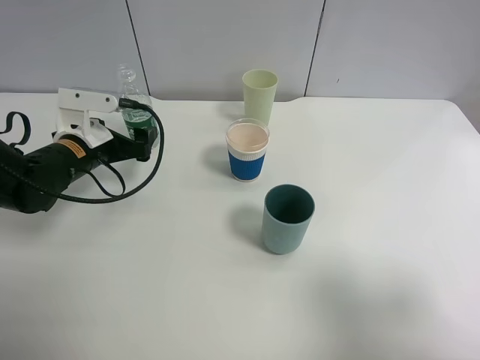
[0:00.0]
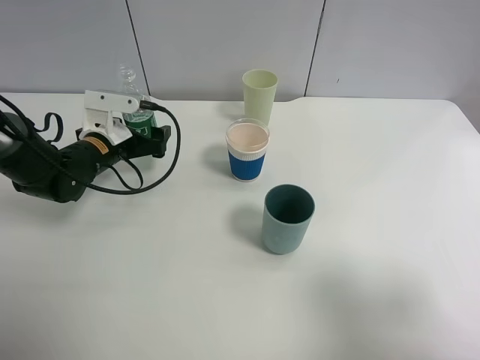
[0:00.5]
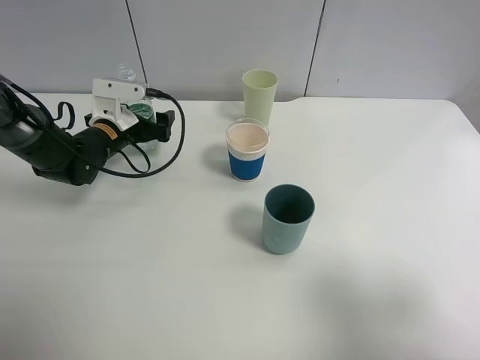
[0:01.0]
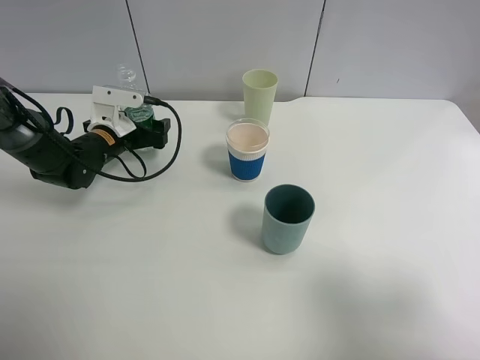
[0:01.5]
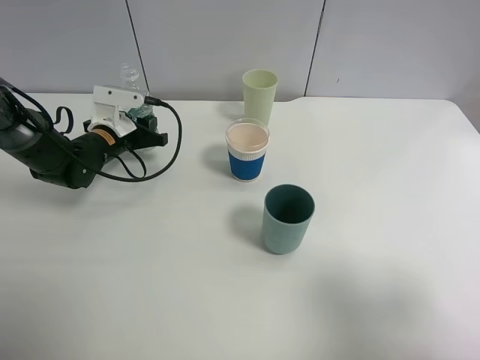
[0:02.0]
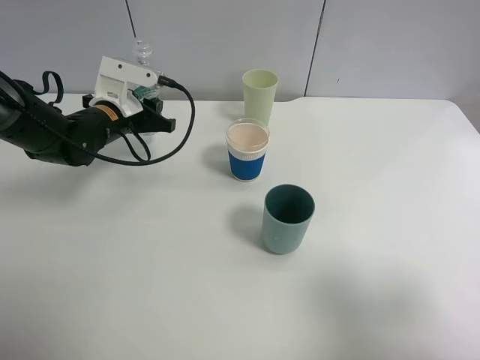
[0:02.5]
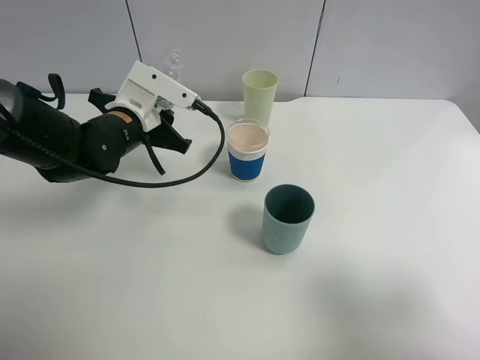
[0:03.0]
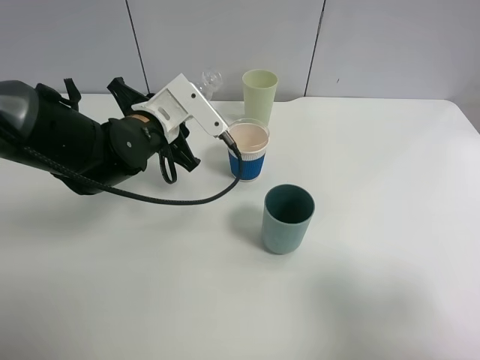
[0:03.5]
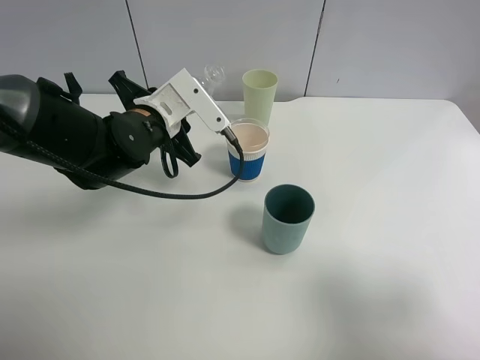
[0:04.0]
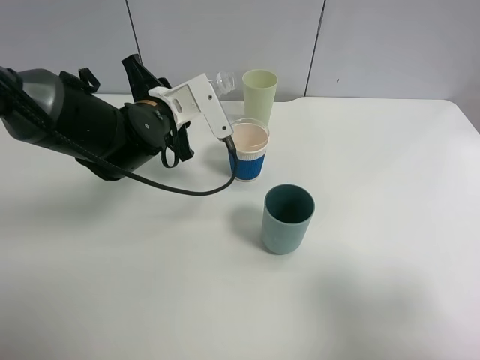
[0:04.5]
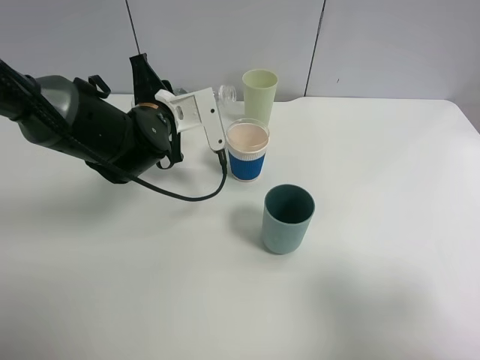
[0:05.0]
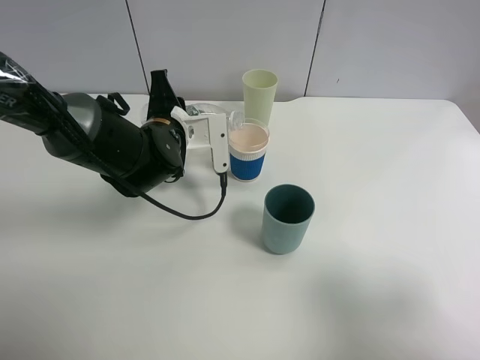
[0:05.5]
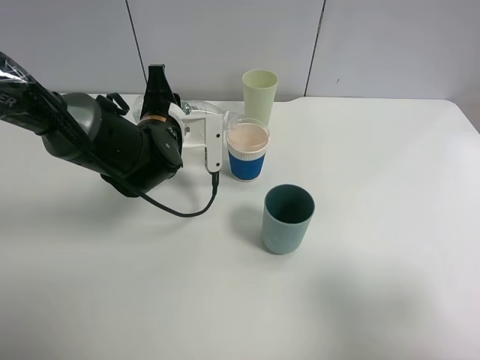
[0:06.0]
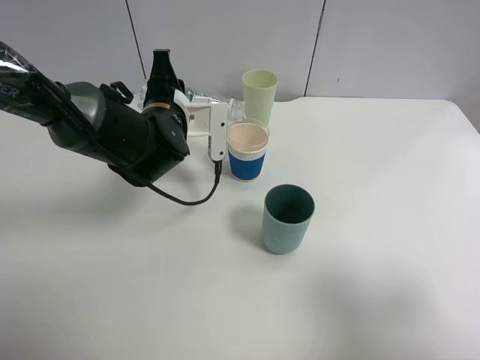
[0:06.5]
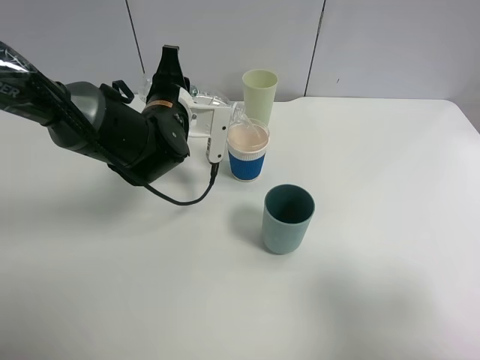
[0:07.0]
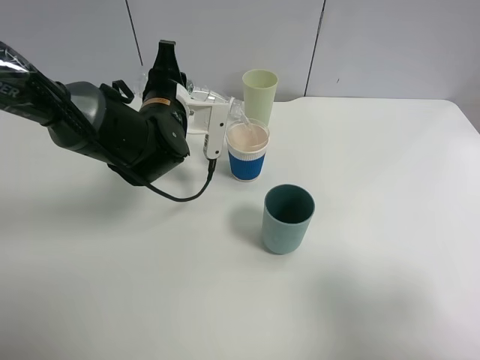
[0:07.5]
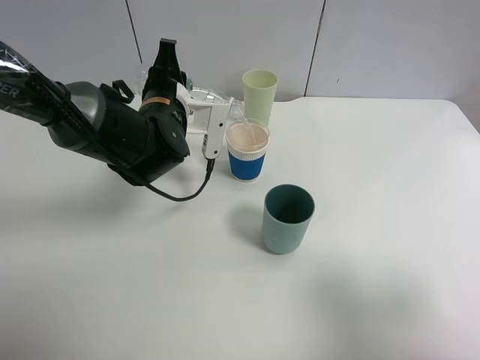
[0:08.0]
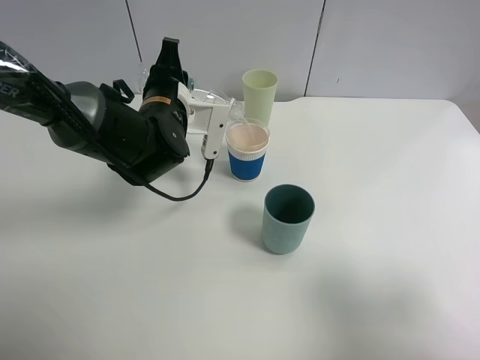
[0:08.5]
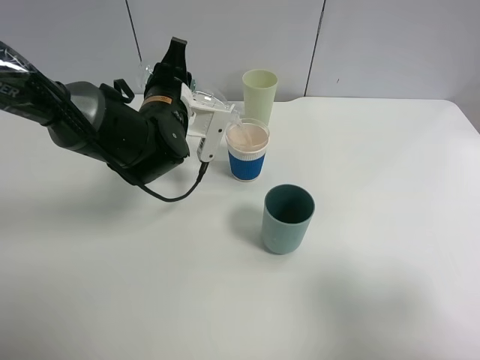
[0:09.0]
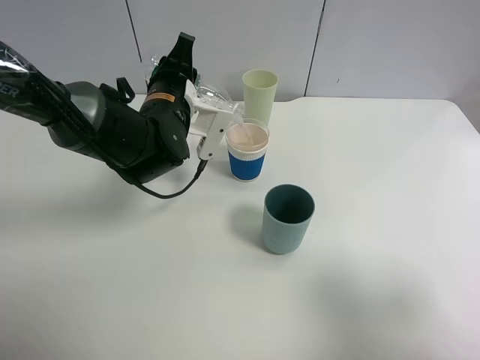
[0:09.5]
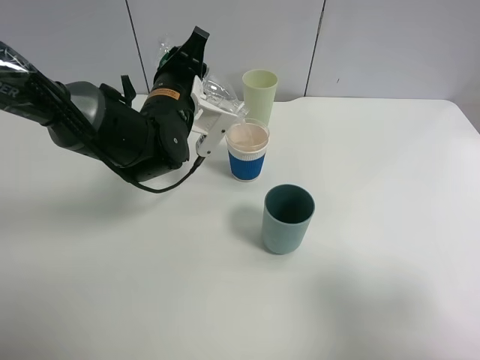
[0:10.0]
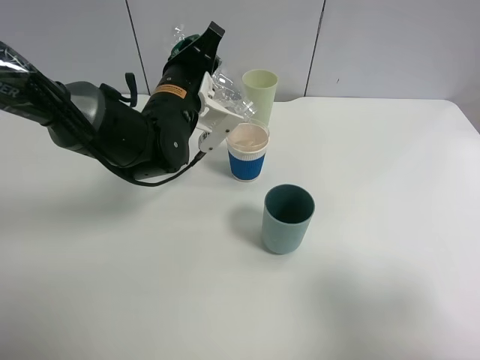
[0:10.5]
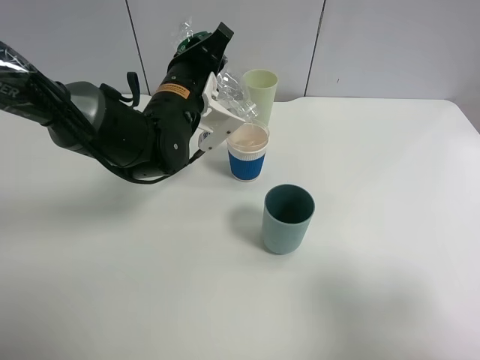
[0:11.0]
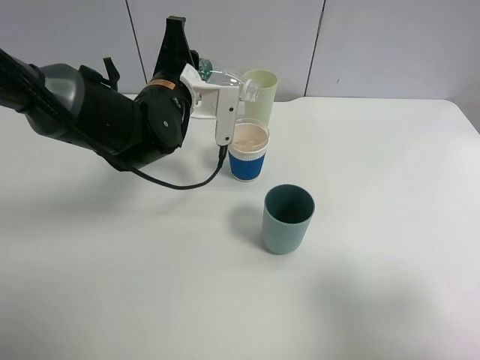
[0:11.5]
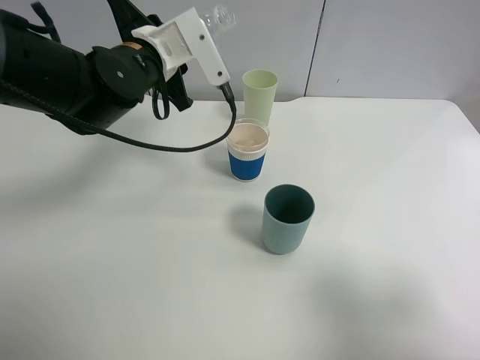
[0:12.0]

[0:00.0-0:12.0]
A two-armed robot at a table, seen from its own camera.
Task of the whole recording: use a clamp to hold the bottle of the drink, pour the beverage into a random cup, then clamp the cup containing the drink and pour the drink into another random cup.
Step, 0:00.0 to 0:02.0: Pick up the water bottle with left gripper.
Step, 0:02.5 to 0:11.5: Pour water into the paper cup with left gripper.
0:00.0 to 0:02.0: The left gripper shifts approximately 5 cm forward, and closes its fingers.
0:02.0 to 0:04.0: The left gripper shifts some 15 cm to the right, upward and backward.
0:06.0 to 0:08.0: The grippers make only small movements.
0:10.0 to 0:12.0: The left gripper heads upward, covering about 5 cm.

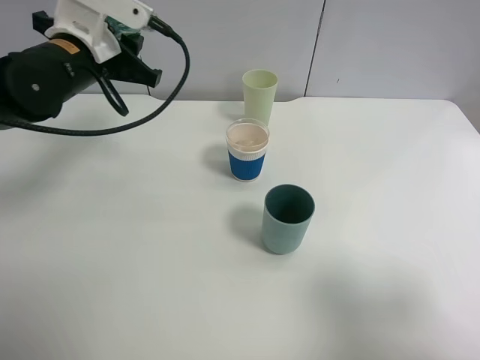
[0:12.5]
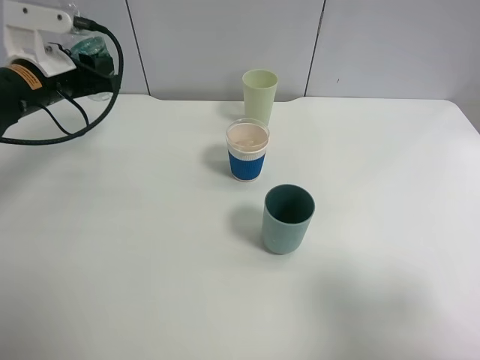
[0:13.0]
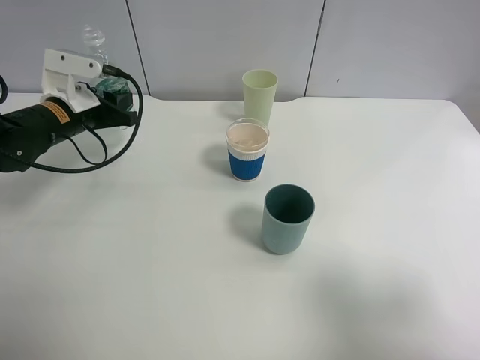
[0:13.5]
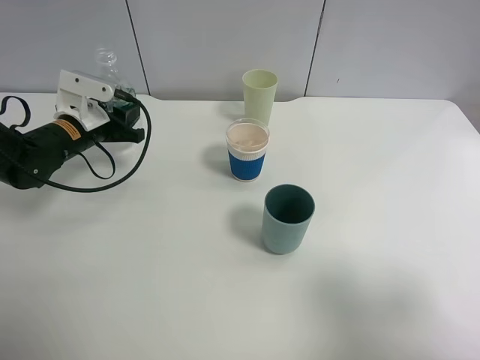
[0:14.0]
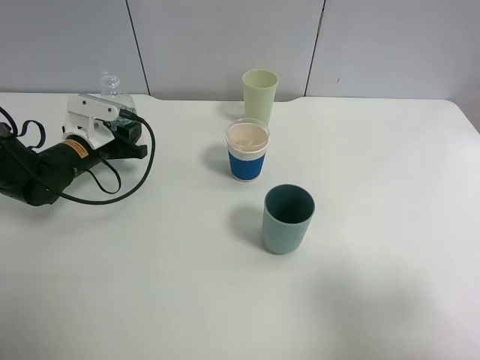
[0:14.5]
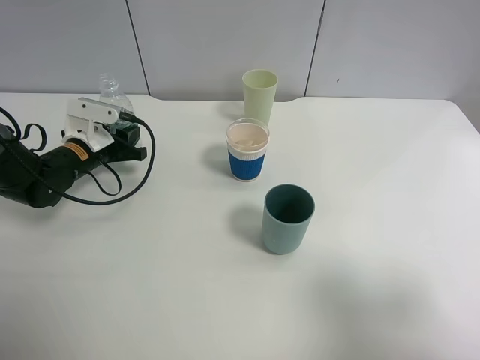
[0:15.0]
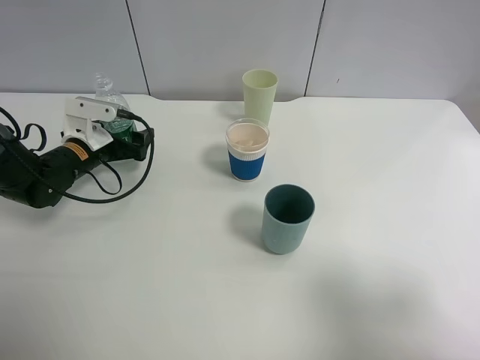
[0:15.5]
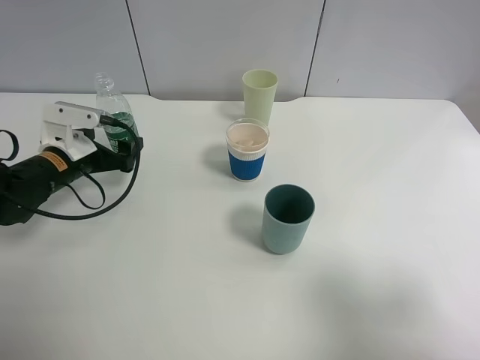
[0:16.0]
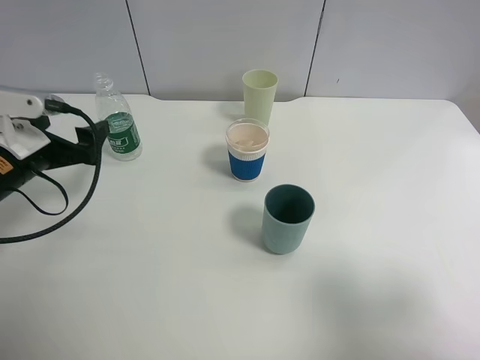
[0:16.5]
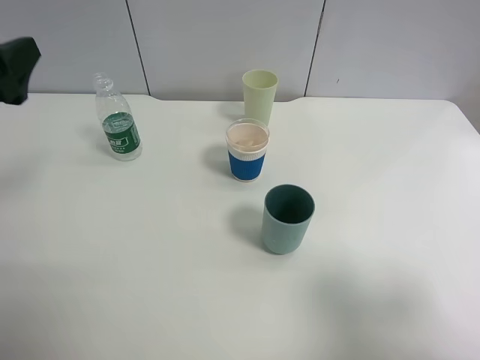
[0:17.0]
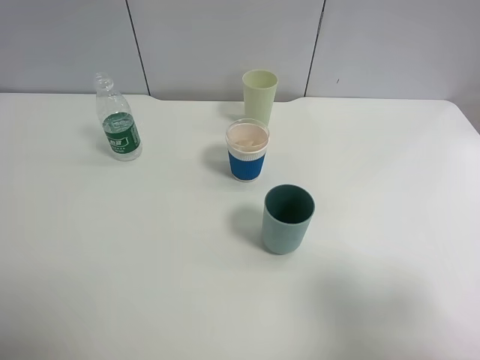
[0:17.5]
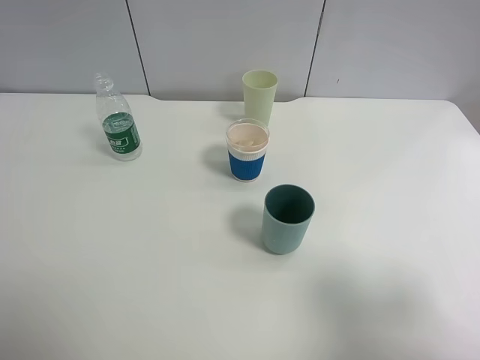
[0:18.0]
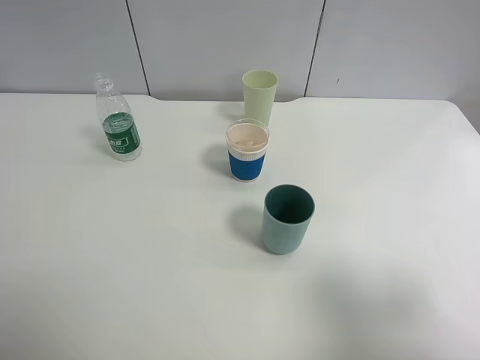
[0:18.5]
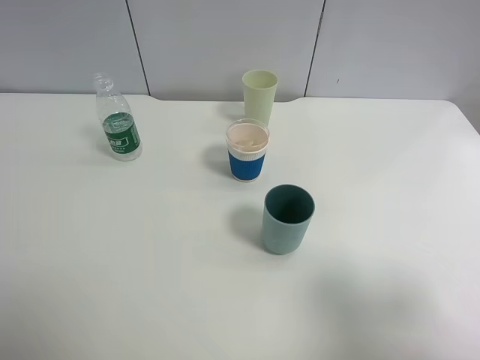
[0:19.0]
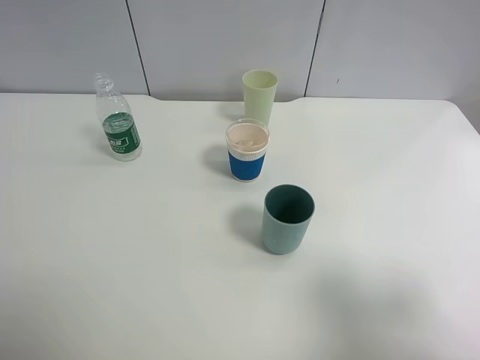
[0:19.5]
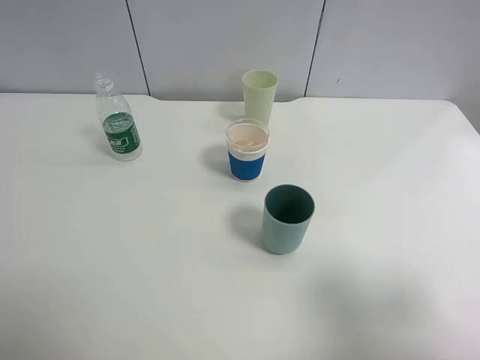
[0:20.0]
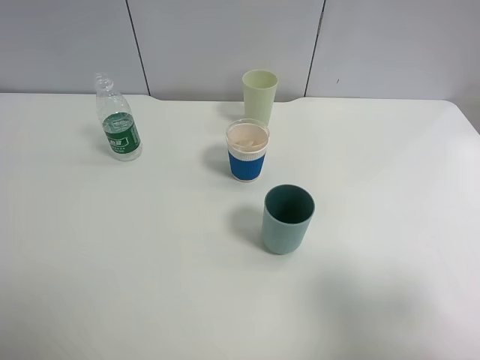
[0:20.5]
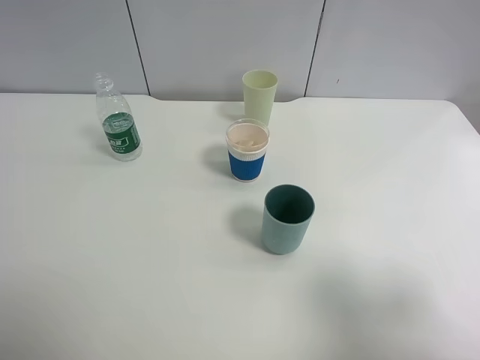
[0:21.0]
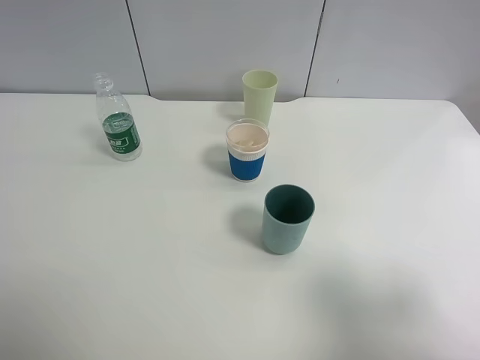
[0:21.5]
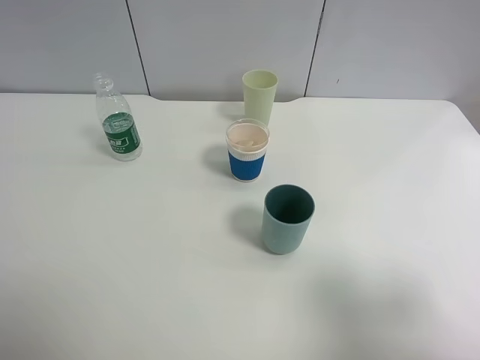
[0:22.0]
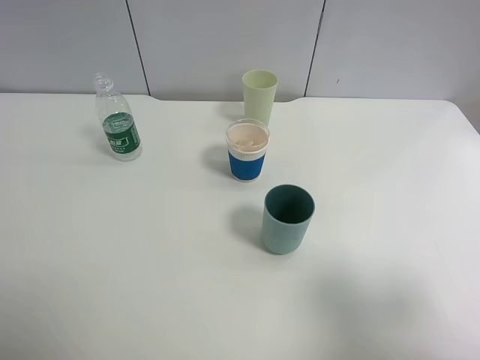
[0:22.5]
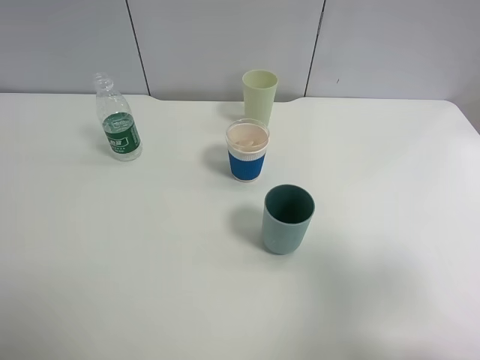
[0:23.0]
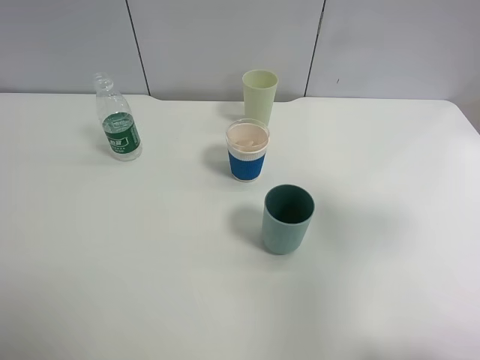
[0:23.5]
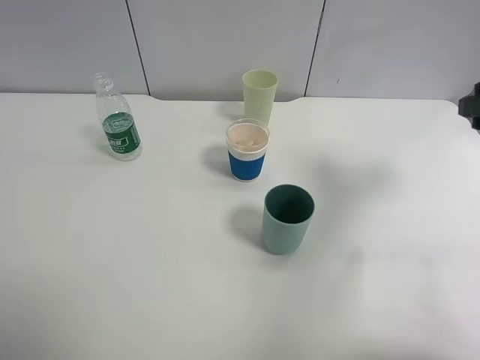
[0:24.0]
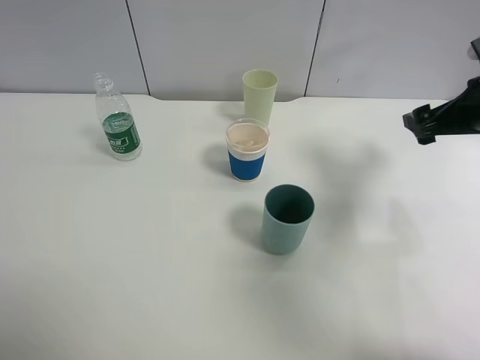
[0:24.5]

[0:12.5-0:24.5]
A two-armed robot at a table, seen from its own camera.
Task of the whole recording: use a clamp to hold the bottle of the drink, pour the beverage into a random cup, then clamp the cup containing the drink and pour the drink into another random cup.
Step, 0:12.5 to 0:15.0: Place the water bottle on the table with left gripper.
0:12.5 to 0:14.5: The left gripper travels downward by approximately 15 cm.
0:14.5 to 0:16.5: The left gripper travels backward and upward by approximately 15 cm, and opens up.
0:16.5 to 0:18.5: The left gripper shifts approximately 30 cm backward and upward.
0:20.5 to 0:22.5: Both grippers stay about where they are.
0:22.5 to 0:24.5: The right gripper travels forward by some 30 cm.

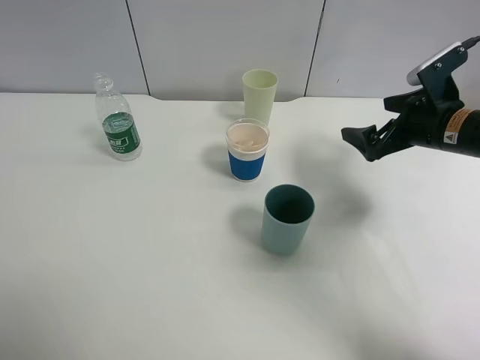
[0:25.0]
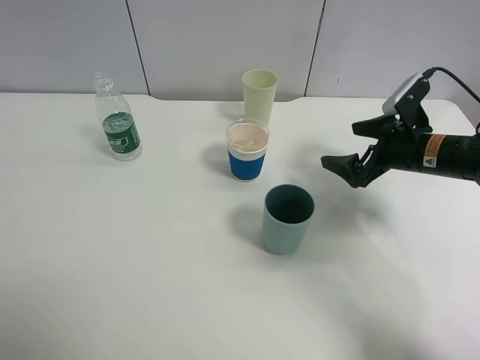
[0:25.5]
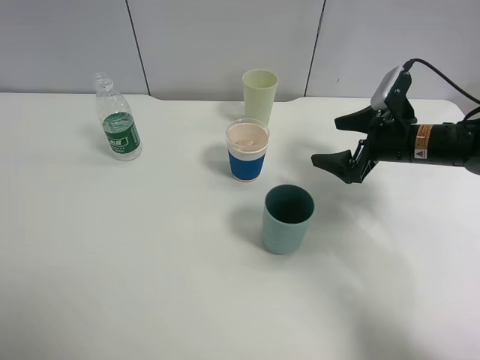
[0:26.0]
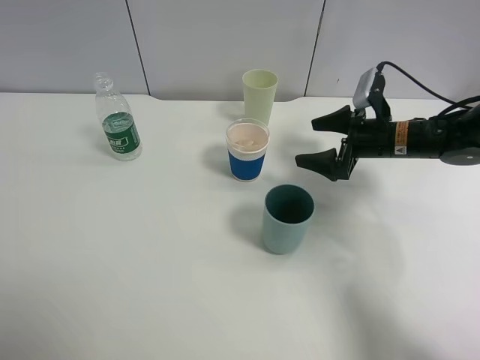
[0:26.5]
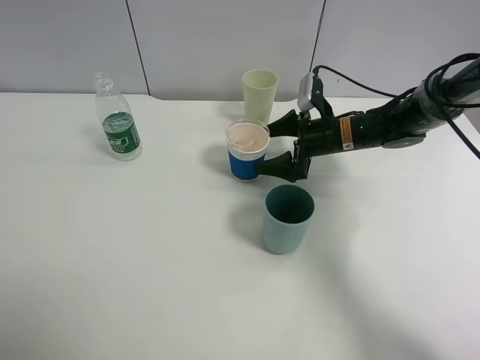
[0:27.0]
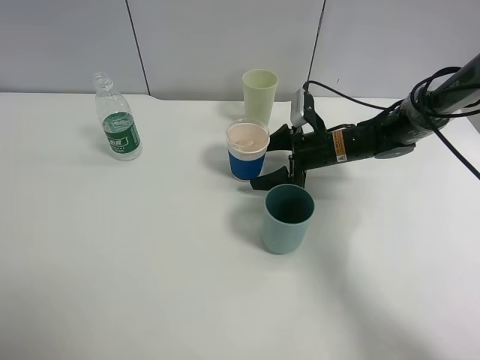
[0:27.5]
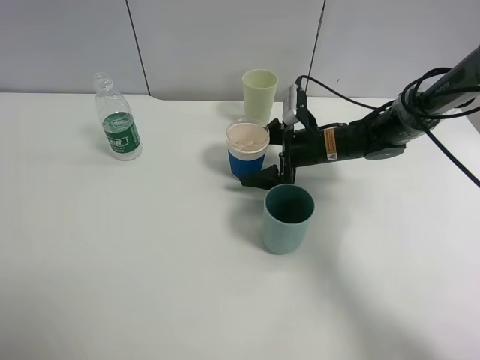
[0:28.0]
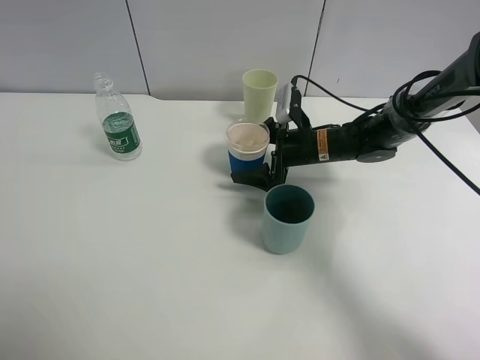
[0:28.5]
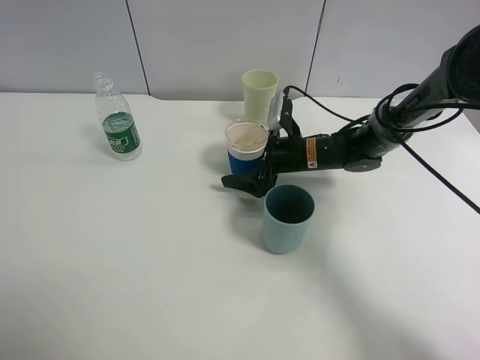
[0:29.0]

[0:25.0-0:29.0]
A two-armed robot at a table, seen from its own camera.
Task of the whole recording: use a clamp to hold the bottle of the drink, pour the beverage into a random cup, then clamp the cup containing the drink and pour the drink into another random cup.
0:25.0 to 0:27.0: The right gripper moves to the left, forward and downward, roughly 15 cm.
0:27.0 to 0:29.0: The right gripper shifts roughly 5 cm to the left.
